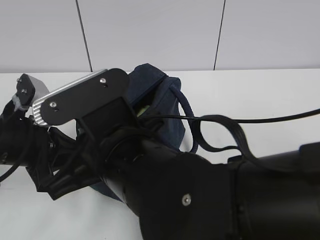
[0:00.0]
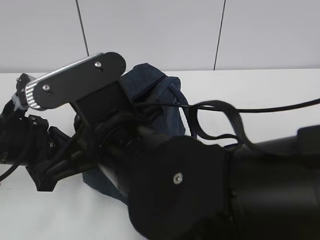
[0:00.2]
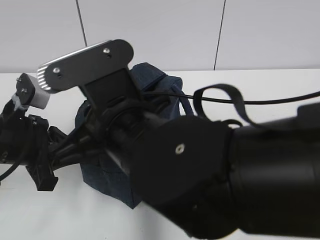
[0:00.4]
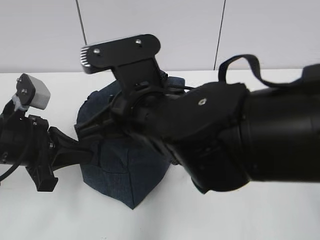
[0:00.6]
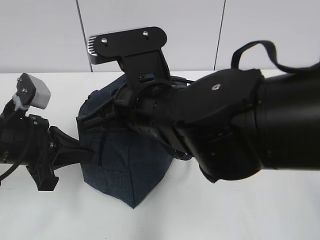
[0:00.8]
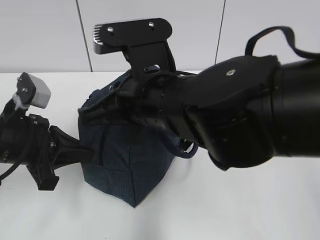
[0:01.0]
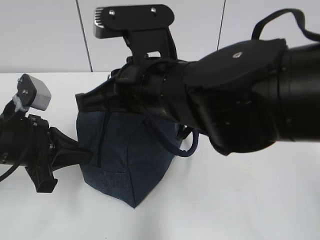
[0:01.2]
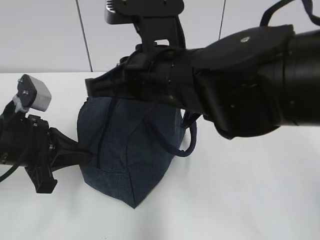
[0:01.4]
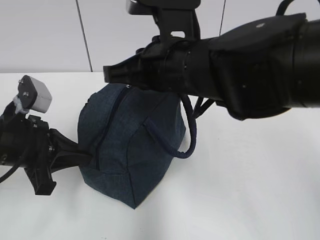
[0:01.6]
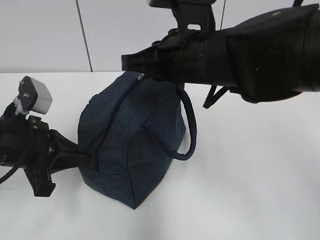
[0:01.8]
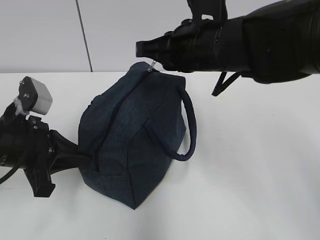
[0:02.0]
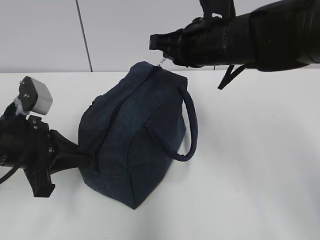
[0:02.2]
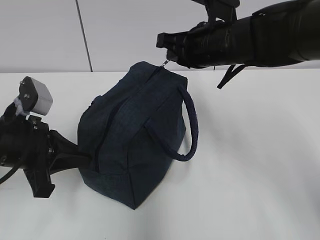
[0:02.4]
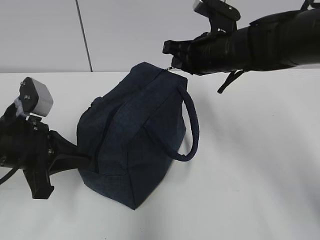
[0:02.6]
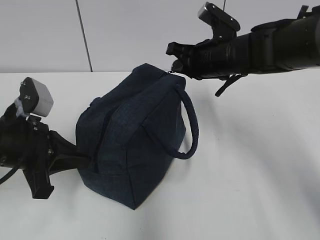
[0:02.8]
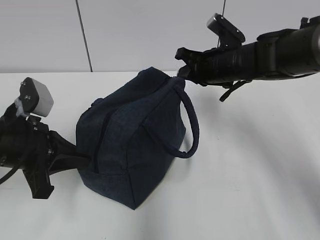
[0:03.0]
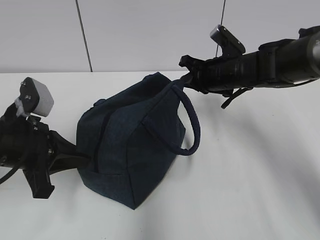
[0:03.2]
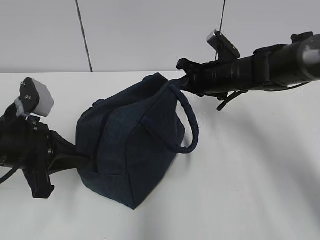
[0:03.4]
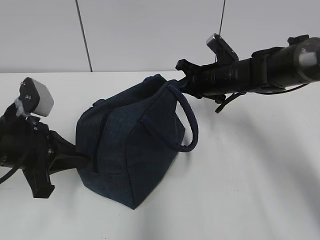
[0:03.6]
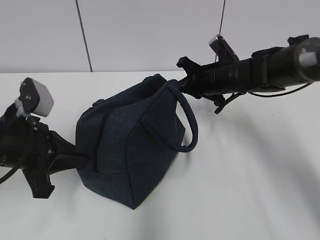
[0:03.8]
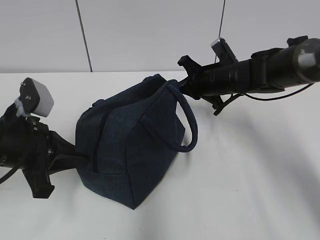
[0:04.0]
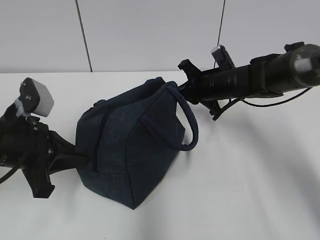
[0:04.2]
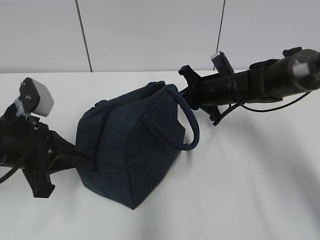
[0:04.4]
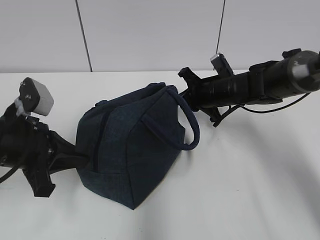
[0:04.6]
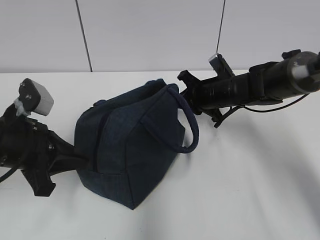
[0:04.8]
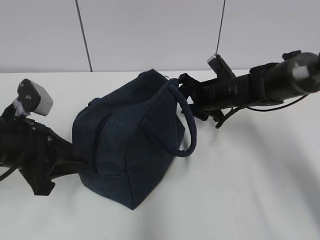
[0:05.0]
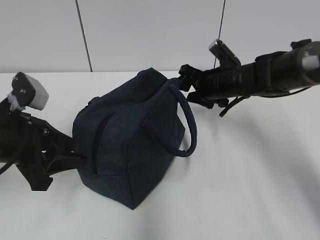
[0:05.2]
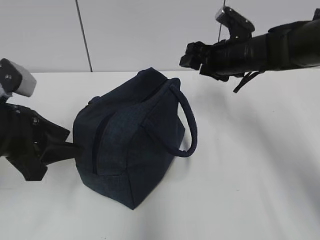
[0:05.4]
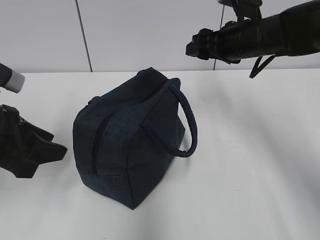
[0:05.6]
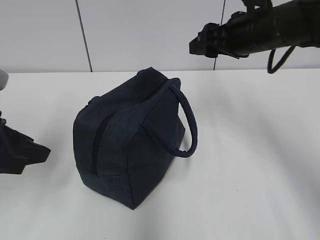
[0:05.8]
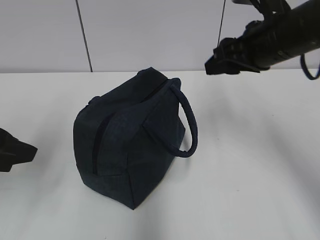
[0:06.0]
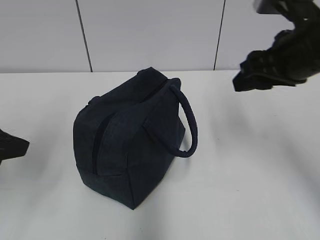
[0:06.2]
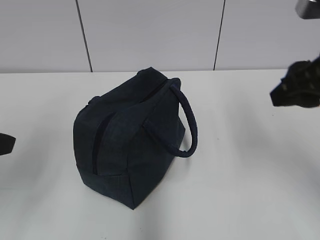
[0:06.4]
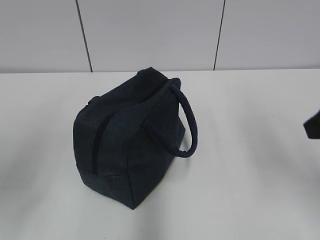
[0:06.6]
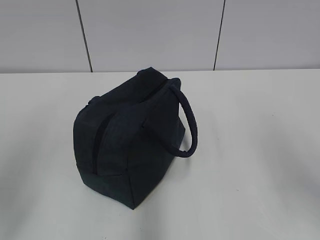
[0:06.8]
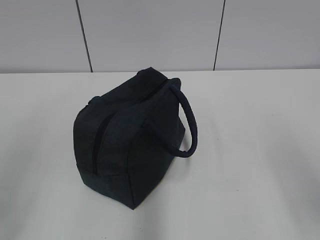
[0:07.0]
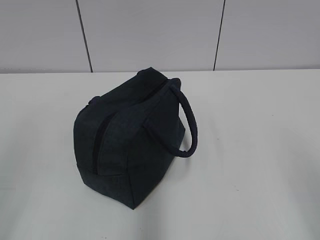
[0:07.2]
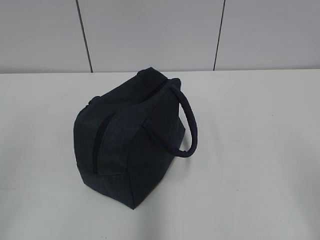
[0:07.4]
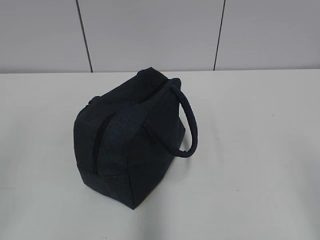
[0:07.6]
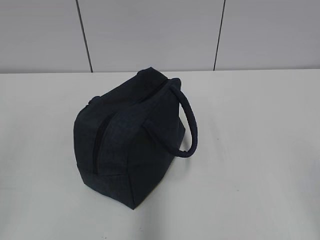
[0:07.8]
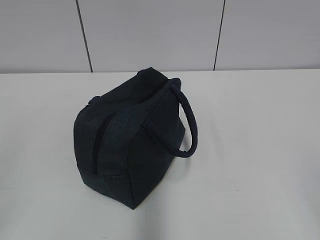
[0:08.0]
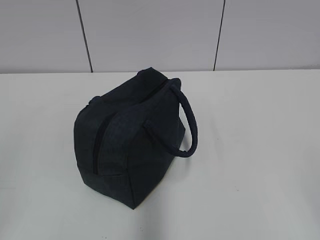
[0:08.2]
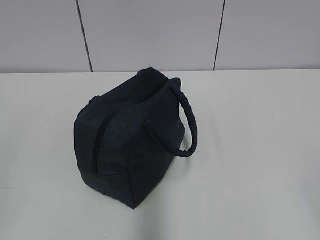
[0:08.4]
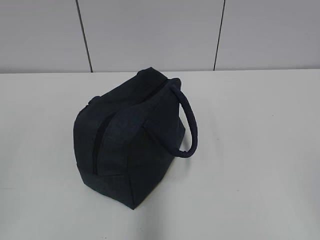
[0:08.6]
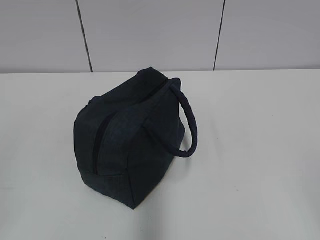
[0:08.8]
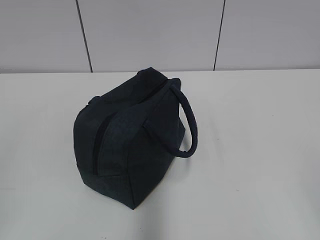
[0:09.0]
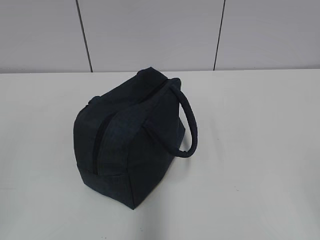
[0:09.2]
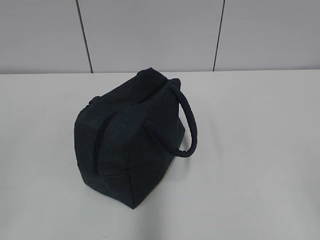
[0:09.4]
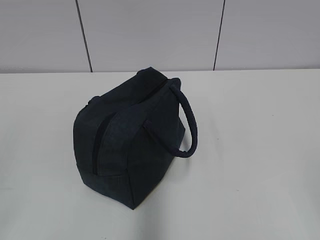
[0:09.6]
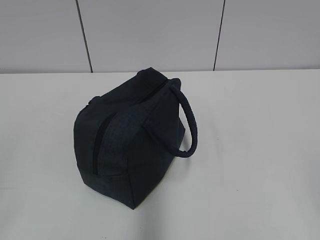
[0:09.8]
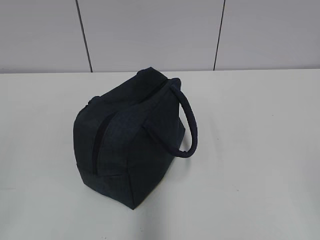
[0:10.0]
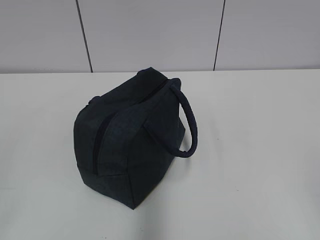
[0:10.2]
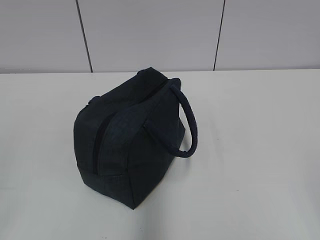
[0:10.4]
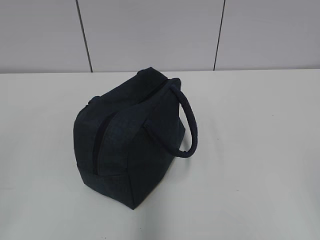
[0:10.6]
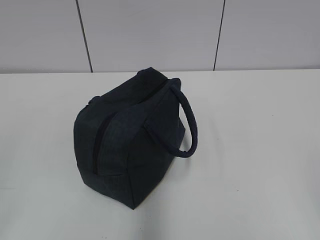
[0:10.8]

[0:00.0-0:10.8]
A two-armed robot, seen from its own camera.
0:00.0 to 0:01.6: The right gripper is displaced forward, to the right and upward by some 15 cm.
0:01.6 to 0:03.0: The right gripper heads forward, to the right and downward, covering approximately 20 cm.
0:03.0 to 0:04.6: The right gripper goes roughly 5 cm downward.
0:04.6 to 0:06.2: The left gripper goes approximately 10 cm upward and backward, and opens up, while the right gripper is displaced upward and backward by about 25 cm, and opens up.
0:06.2 to 0:07.8: The left gripper shifts roughly 15 cm backward. The right gripper moves backward, approximately 25 cm.

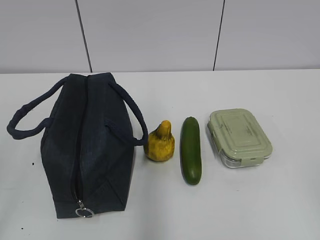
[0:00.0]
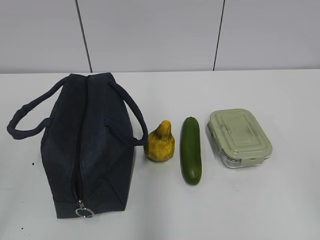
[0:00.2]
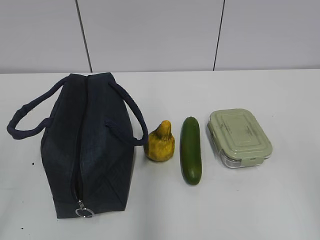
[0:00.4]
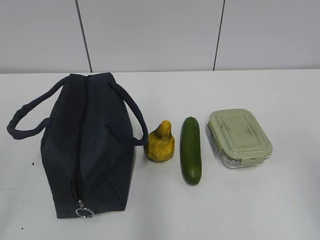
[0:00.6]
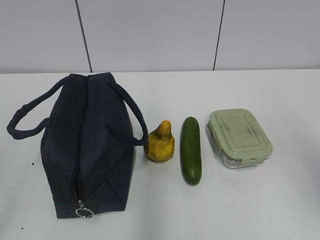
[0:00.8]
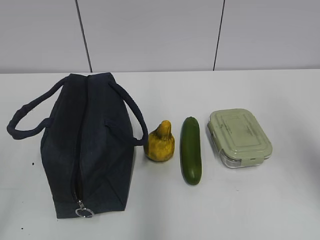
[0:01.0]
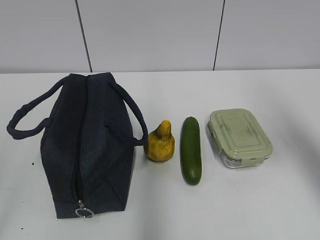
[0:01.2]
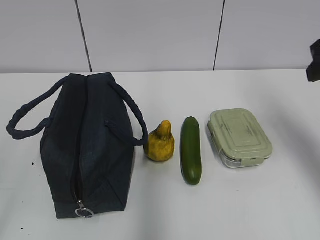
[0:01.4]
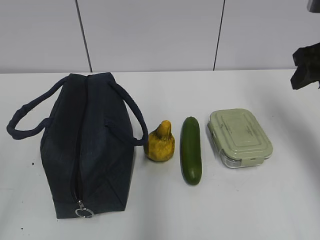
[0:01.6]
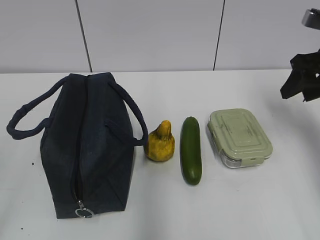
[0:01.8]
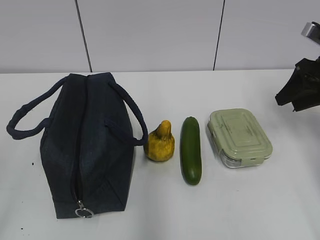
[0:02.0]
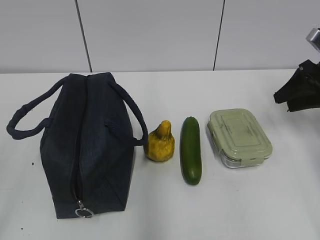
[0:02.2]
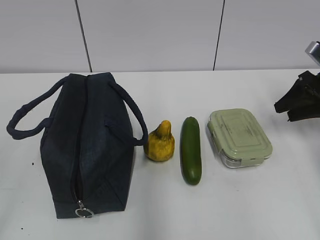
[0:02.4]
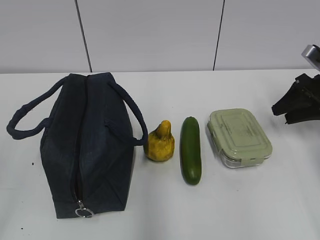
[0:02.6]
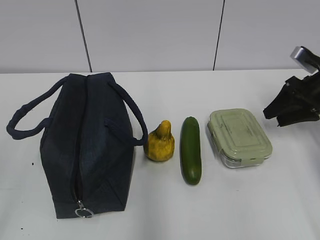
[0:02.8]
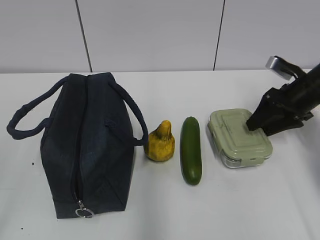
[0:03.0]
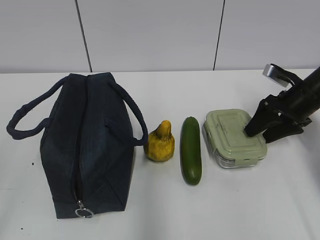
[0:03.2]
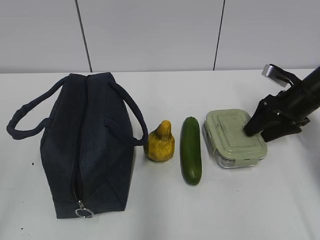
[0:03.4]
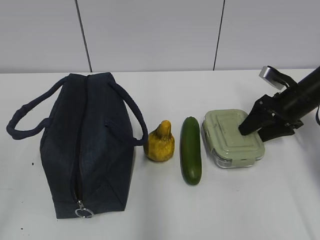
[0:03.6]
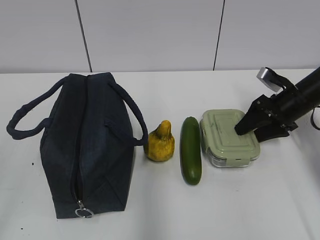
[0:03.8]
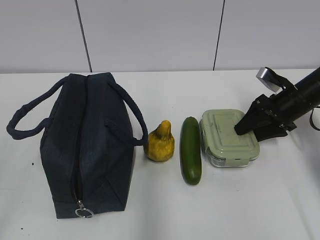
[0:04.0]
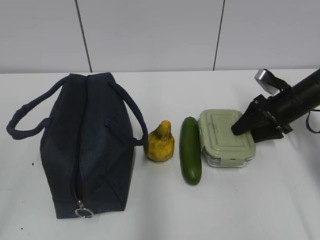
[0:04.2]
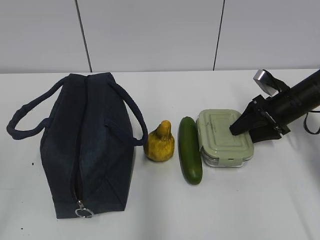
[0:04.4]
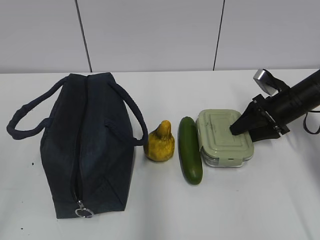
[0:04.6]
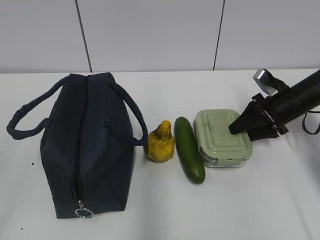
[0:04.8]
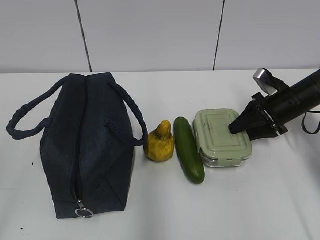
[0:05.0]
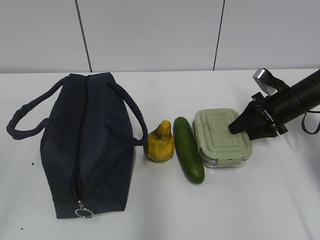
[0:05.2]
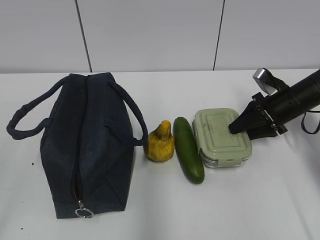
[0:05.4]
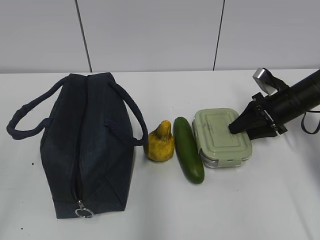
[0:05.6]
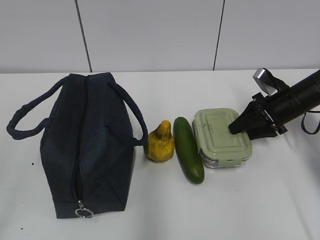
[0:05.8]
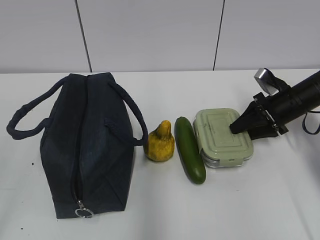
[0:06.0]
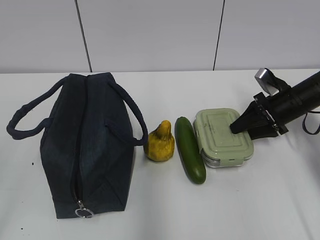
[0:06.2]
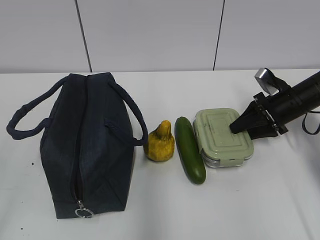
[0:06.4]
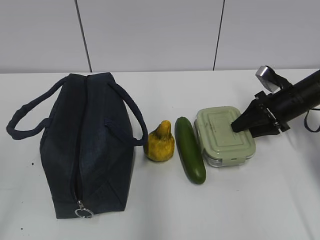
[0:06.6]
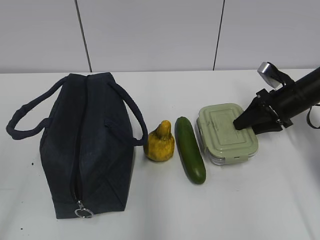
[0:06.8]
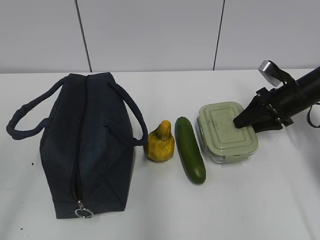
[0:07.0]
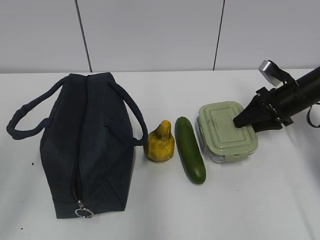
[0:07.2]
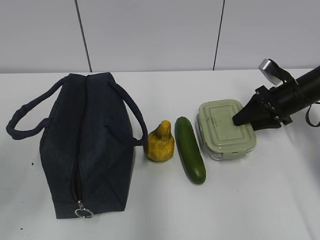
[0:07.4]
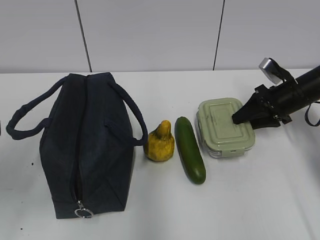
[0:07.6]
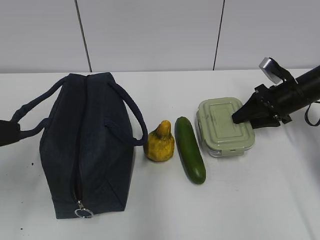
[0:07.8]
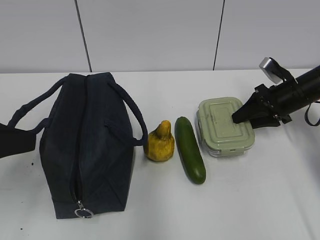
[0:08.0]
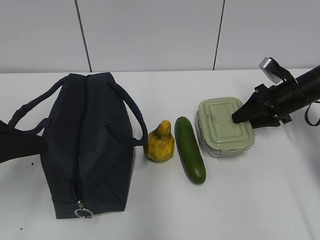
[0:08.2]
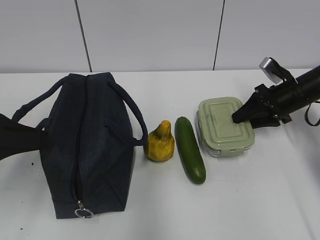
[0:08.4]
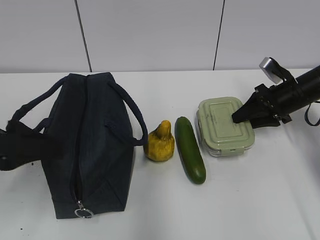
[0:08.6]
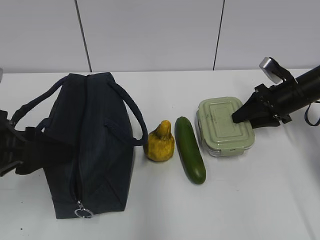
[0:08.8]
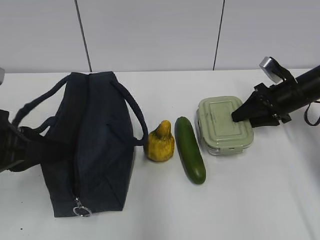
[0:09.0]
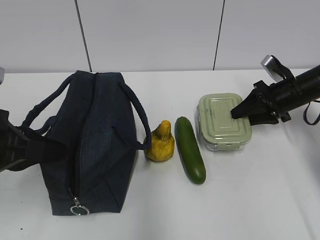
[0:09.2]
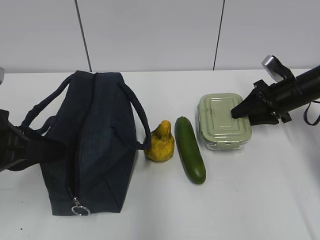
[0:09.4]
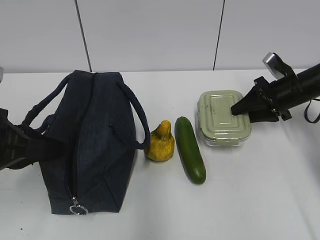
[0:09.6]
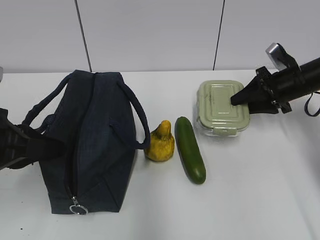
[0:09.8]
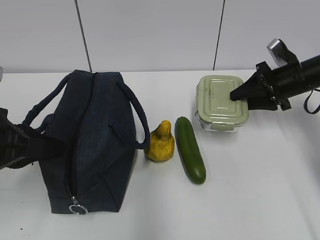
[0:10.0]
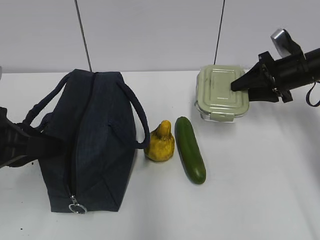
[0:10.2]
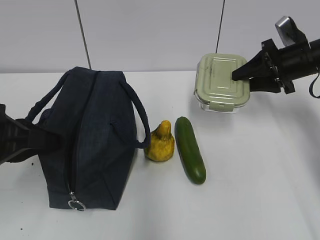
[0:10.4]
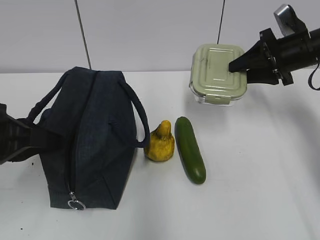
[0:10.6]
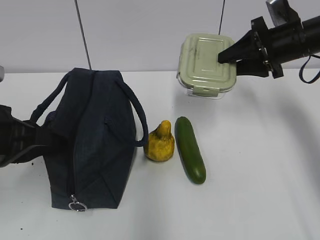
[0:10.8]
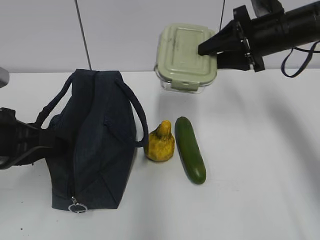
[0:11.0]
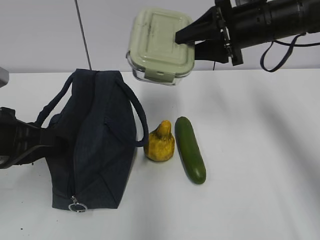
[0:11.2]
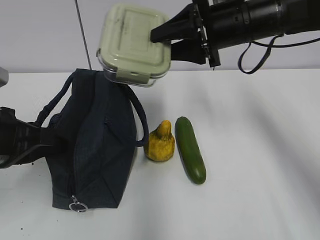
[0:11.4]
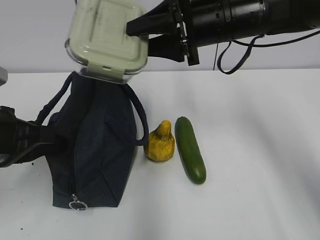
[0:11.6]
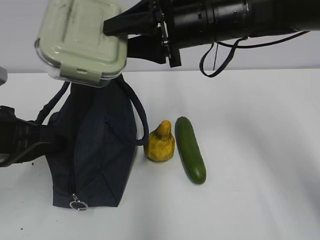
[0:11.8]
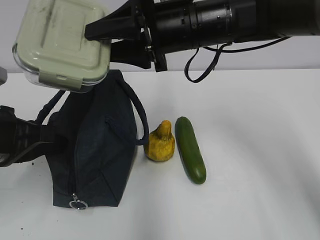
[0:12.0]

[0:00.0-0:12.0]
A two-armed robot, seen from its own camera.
0:01.6 to 0:03.0: The right gripper moves downward and forward, about 15 cm.
0:03.0 to 0:04.4: The right gripper ends up approximately 5 cm from where it was.
0:04.4 to 0:06.0: Neither gripper changes place.
0:06.0 to 0:07.6: The left gripper heads forward, covering about 15 cm.
0:07.6 to 0:09.0: The left gripper travels forward and downward by some 10 cm, and closes up.
0:09.0 to 0:10.4: The right gripper heads upward, covering roughly 5 cm.
0:10.4 to 0:12.0: The right gripper heads to the left, covering roughly 25 cm.
